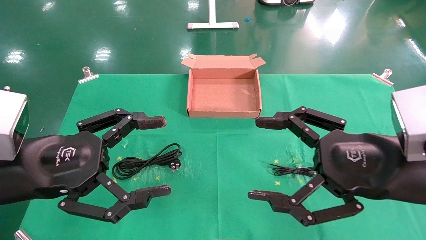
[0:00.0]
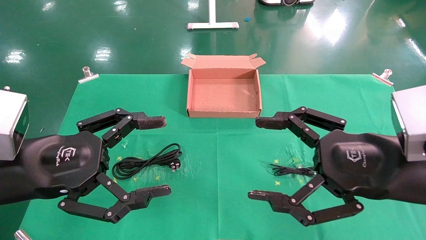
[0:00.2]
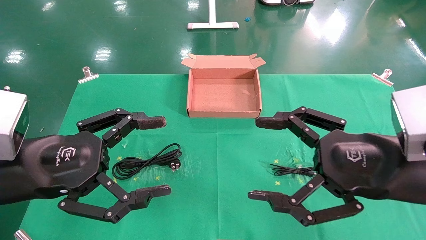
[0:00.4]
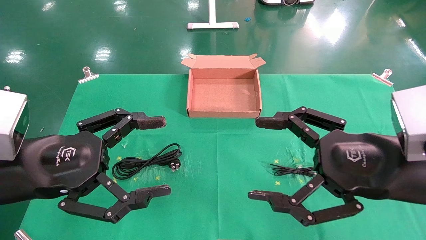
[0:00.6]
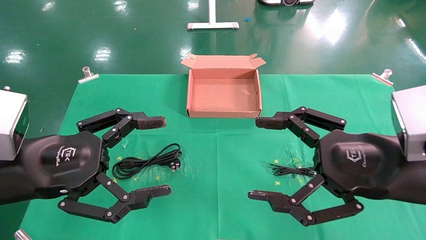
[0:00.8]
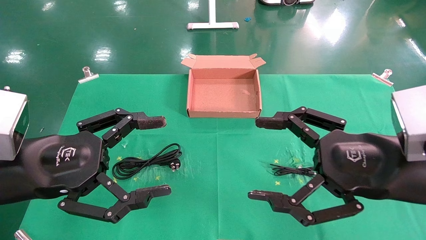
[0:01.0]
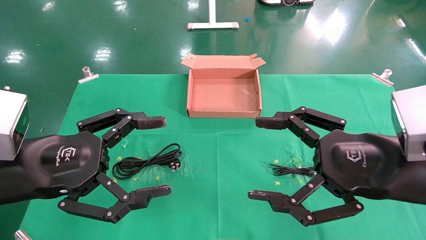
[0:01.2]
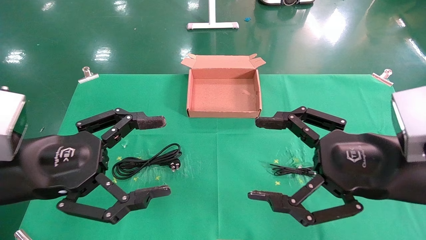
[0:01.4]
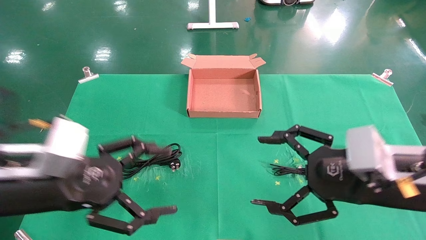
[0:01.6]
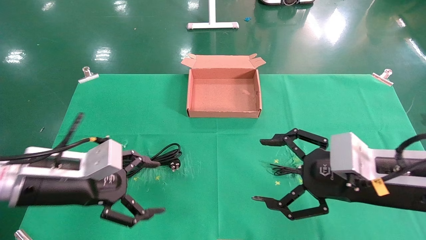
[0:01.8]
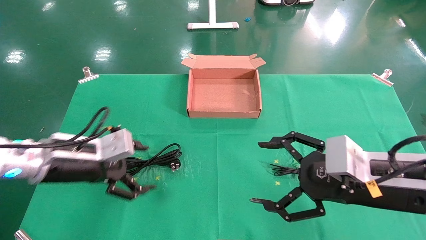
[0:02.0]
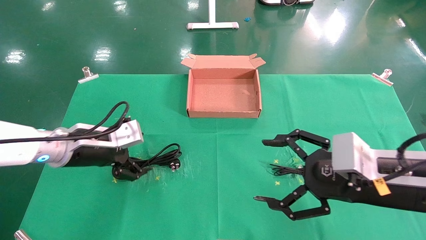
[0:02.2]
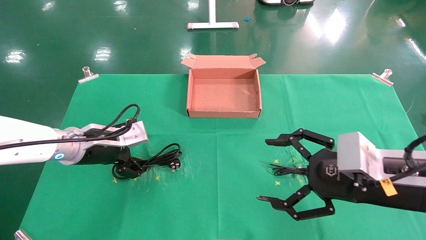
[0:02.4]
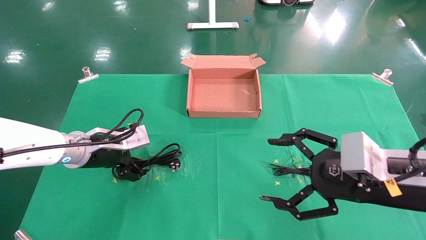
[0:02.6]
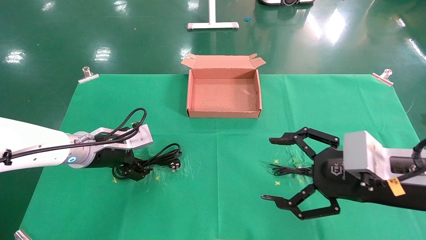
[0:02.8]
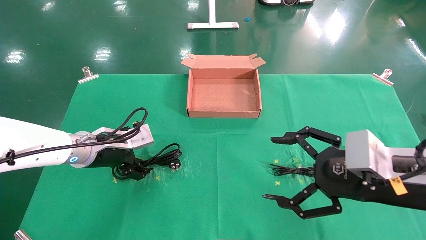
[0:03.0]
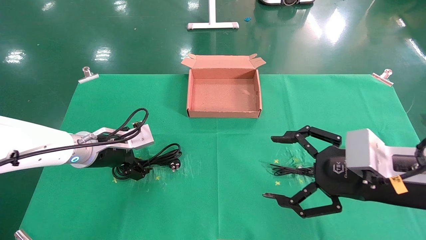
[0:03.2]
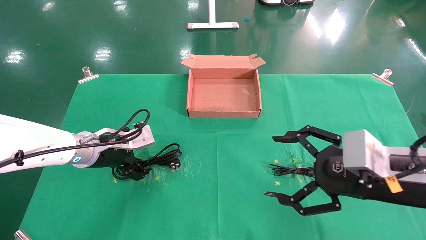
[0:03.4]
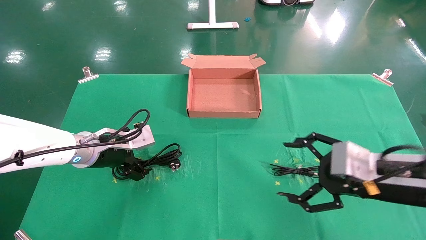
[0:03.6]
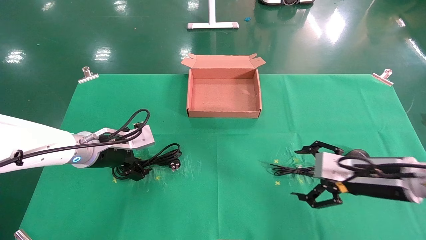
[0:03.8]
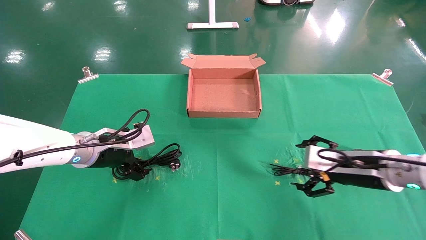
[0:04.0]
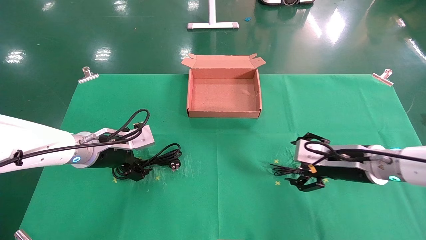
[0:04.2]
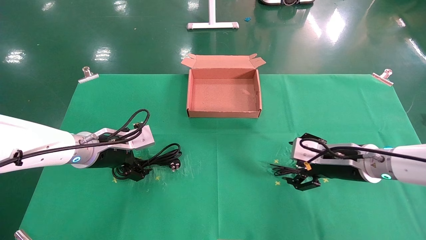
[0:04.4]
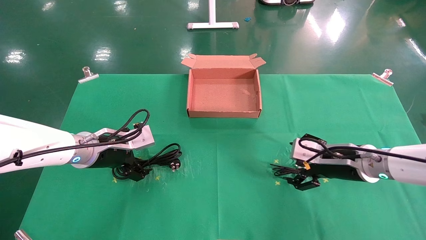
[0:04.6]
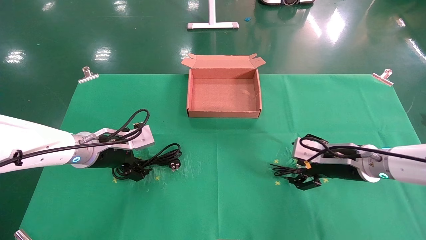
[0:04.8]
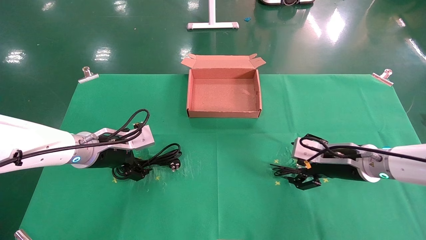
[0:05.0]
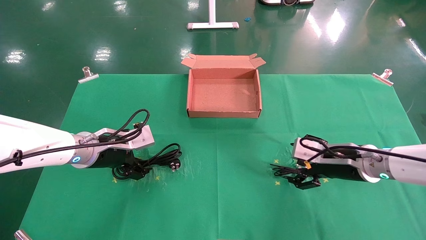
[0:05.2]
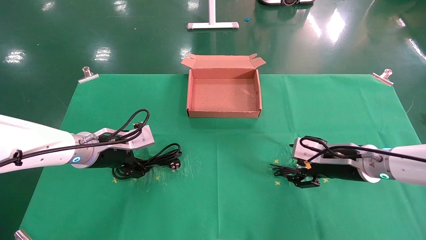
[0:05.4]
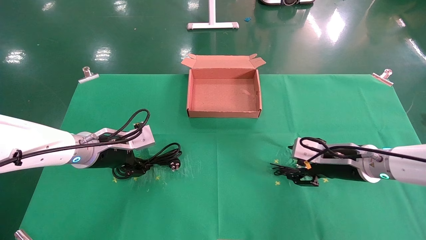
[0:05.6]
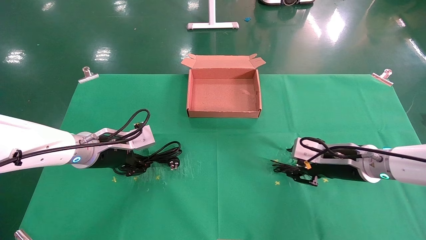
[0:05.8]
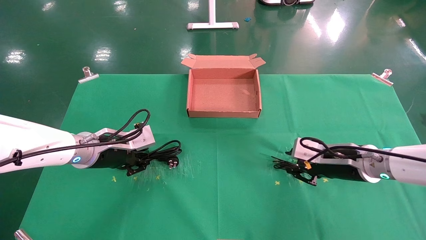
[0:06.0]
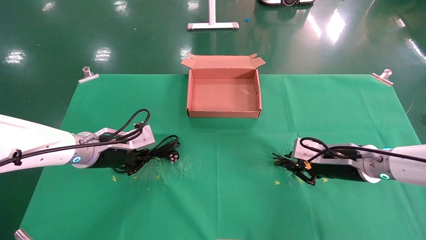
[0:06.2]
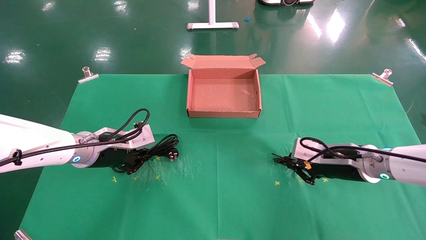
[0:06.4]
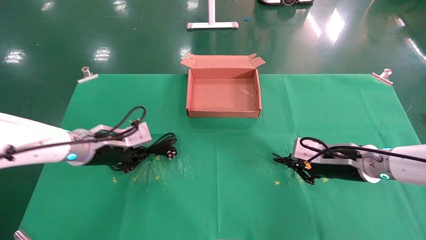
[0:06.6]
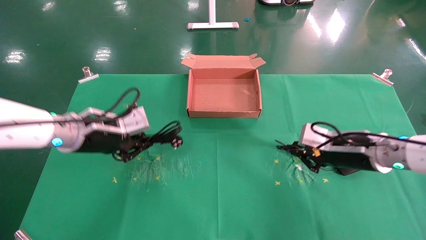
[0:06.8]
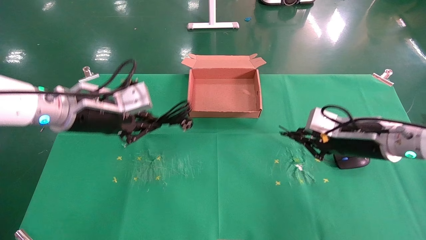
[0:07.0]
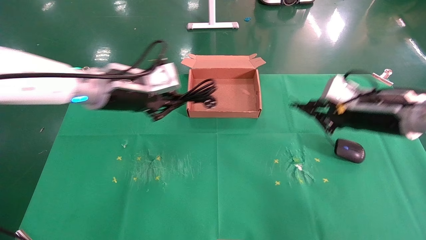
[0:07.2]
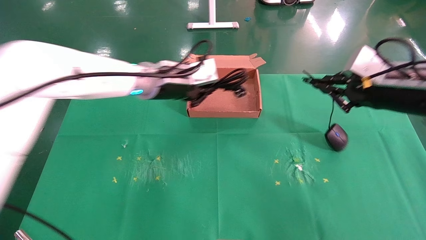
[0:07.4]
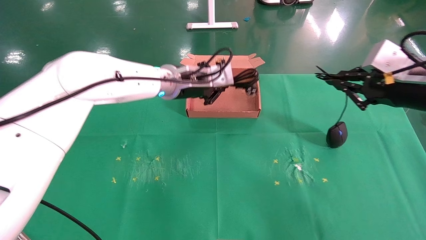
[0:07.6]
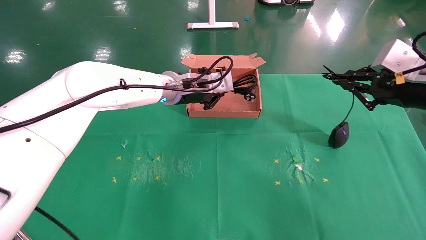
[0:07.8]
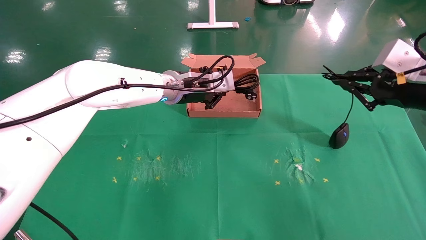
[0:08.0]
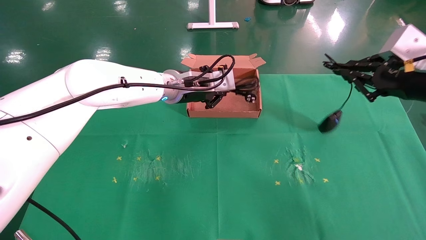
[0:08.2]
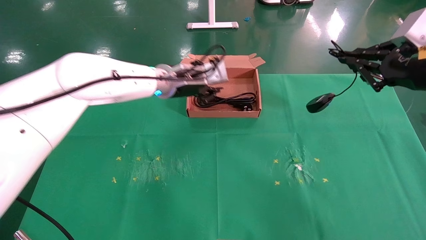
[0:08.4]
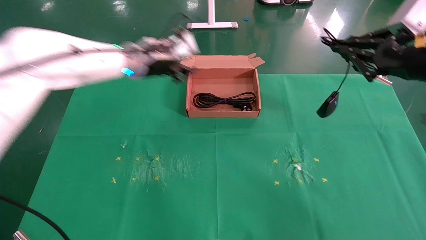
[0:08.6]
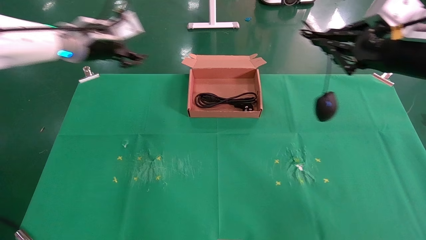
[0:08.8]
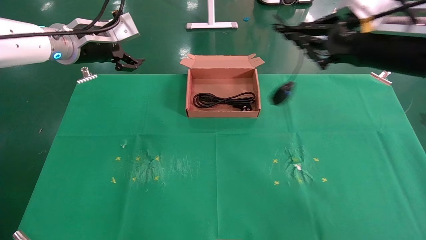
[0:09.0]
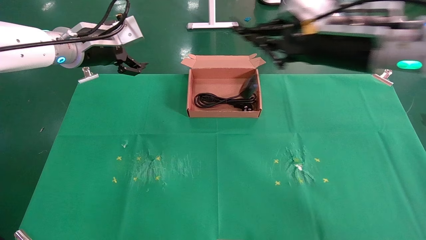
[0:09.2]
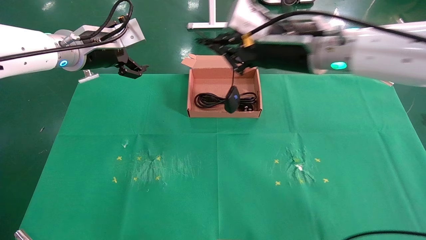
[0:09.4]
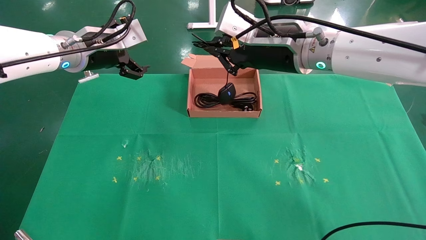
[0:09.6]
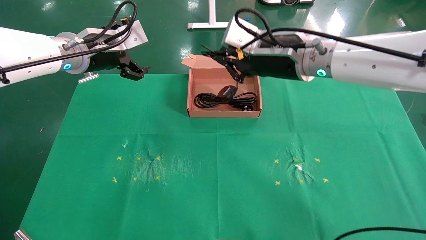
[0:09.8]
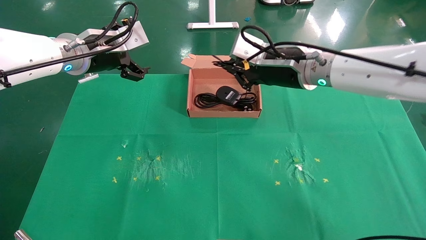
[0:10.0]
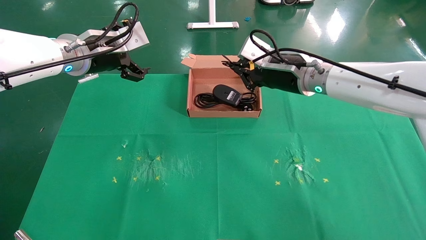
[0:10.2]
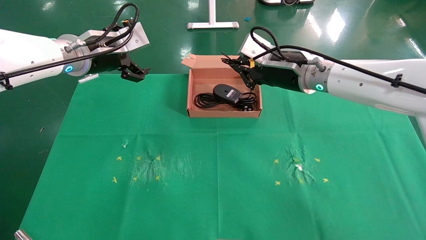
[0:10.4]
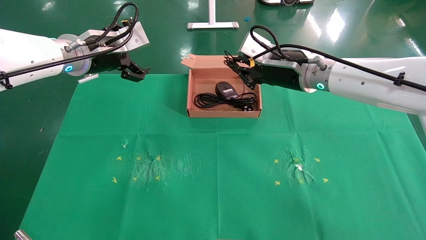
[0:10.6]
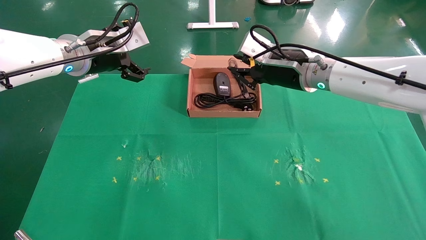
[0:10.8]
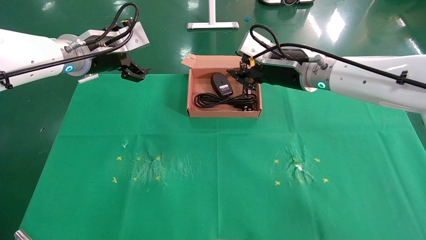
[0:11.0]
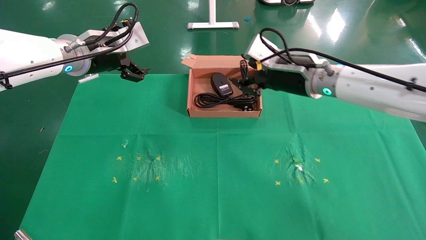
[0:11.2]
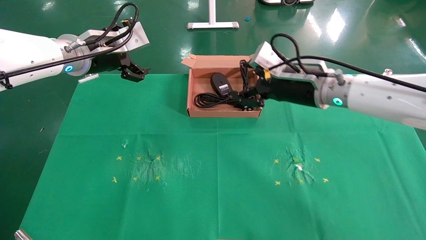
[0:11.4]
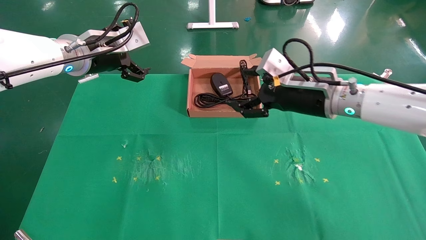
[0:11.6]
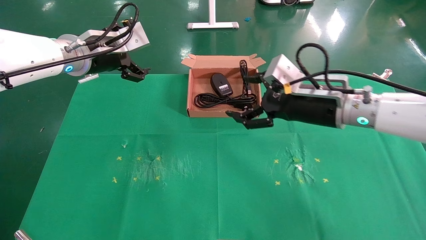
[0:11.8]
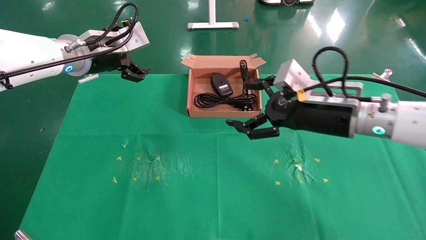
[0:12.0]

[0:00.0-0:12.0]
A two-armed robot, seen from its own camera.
Task of the whole recording: grasp data cable left put into box grasp mouse right put into box.
Step, 0:01.8 to 0:06.4: Simultaneously pick up the mouse and power cord from the accessory packaging area.
Step, 0:06.6 to 0:10.8: Place the mouse and power cord into the box.
0:00.0 to 0:01.6: The left gripper changes place by some 5 cm.
0:01.6 to 0:03.0: The left gripper is displaced forward by some 15 cm.
0:03.0 to 0:04.4: The right gripper is displaced forward and downward by approximately 15 cm.
0:04.4 to 0:06.0: The left gripper closes its fingers. The right gripper closes up.
0:06.0 to 0:07.6: The left gripper shifts approximately 20 cm to the right, upward and forward, while the right gripper travels upward and to the right by some 15 cm, and closes its fingers.
0:07.6 to 0:09.0: The left gripper travels to the left and upward by roughly 20 cm, and opens its fingers. The right gripper travels to the left and upward by roughly 10 cm.
0:09.0 to 0:10.4: The right gripper shifts about 15 cm forward, to the left and downward, while the left gripper opens up.
0:10.4 to 0:12.0: The right gripper travels backward and downward by approximately 10 cm, and opens its fingers.

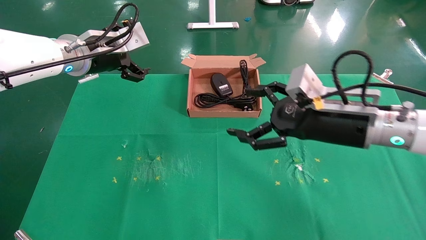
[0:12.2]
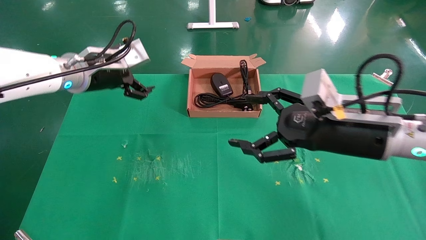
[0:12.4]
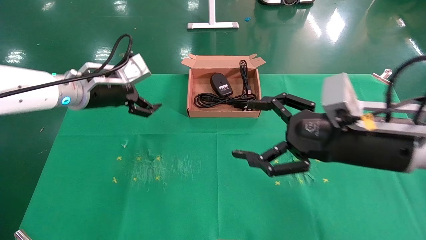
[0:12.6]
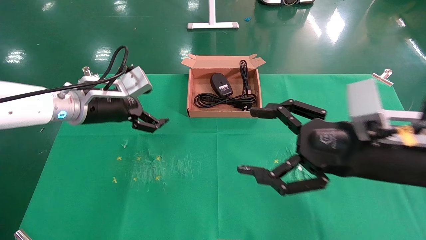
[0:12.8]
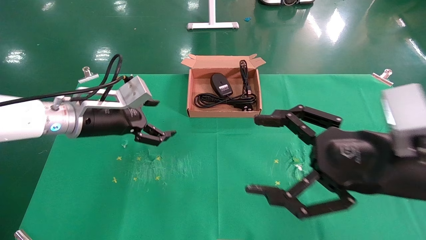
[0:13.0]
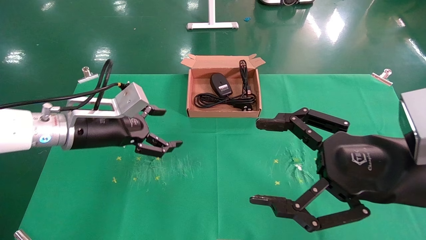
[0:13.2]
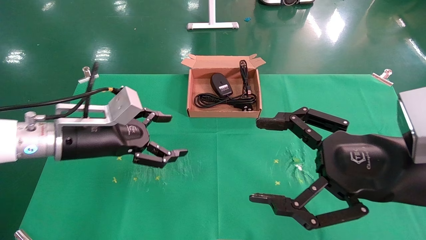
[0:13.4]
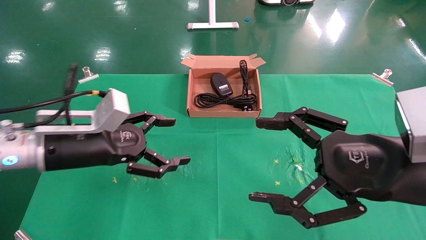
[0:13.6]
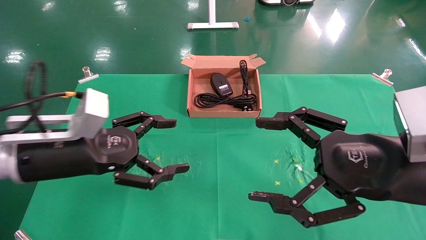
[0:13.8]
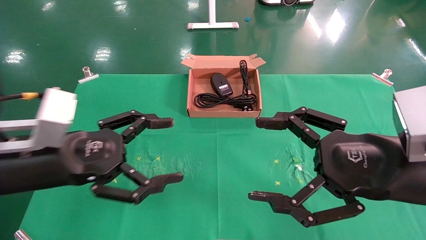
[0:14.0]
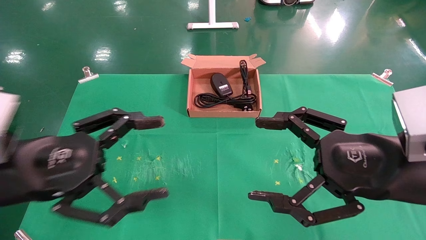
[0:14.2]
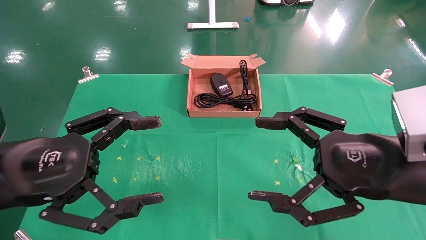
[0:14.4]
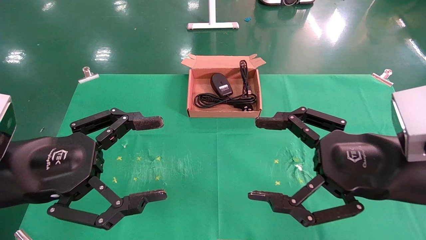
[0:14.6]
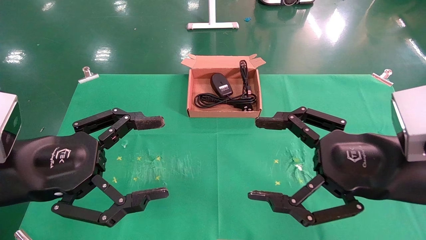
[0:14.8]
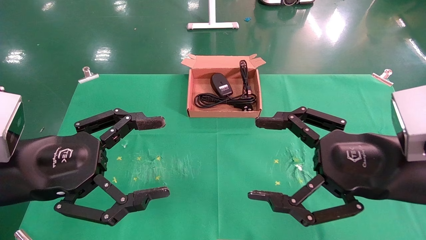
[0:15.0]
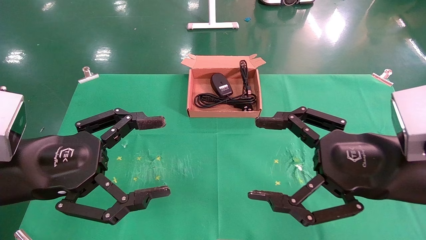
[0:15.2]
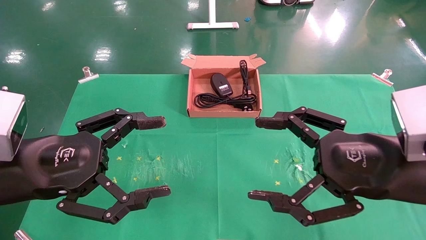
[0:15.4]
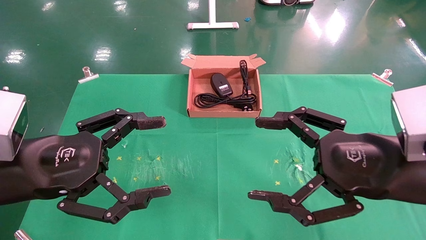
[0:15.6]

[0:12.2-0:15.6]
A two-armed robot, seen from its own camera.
Task of the whole recording: grasp data cable left put into box grasp mouse right put into box.
0:12.2 to 0:13.8: The left gripper shifts about 20 cm backward and downward, while the right gripper travels backward by approximately 10 cm.
0:13.8 to 0:15.6: The left gripper is displaced backward by approximately 5 cm.
